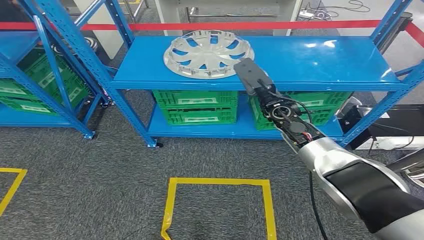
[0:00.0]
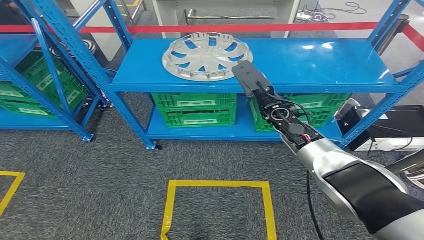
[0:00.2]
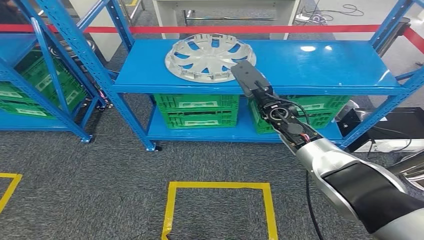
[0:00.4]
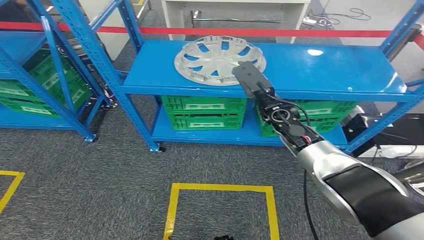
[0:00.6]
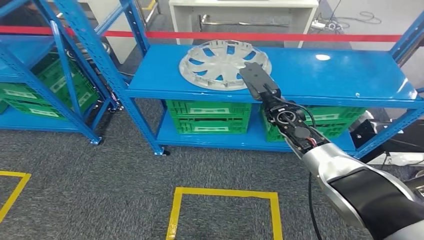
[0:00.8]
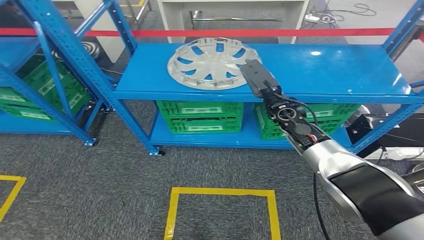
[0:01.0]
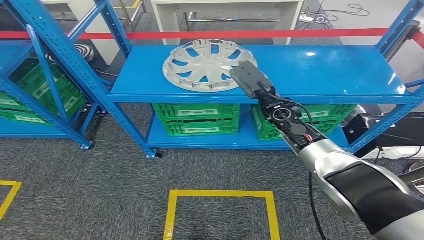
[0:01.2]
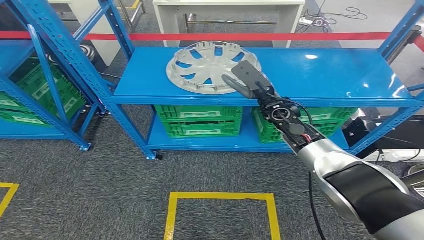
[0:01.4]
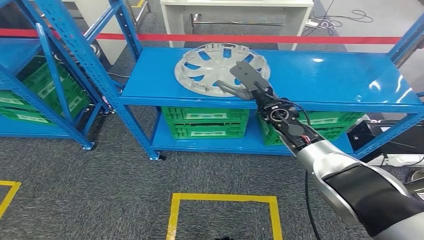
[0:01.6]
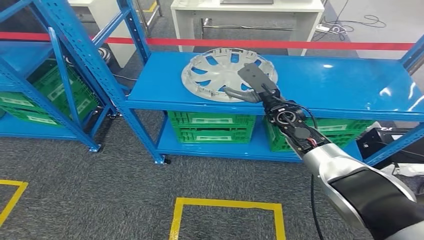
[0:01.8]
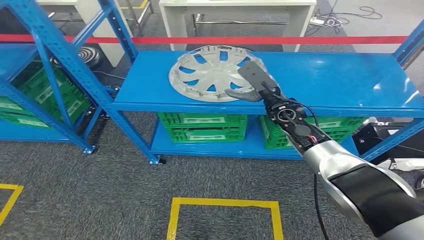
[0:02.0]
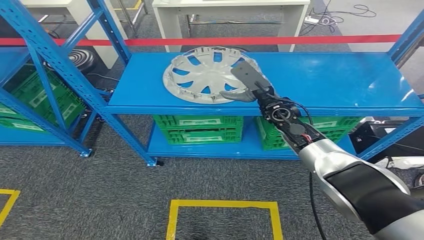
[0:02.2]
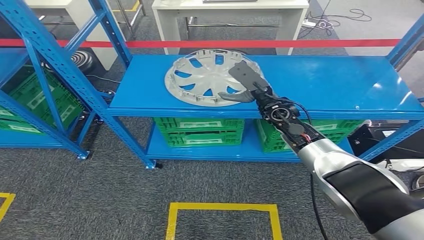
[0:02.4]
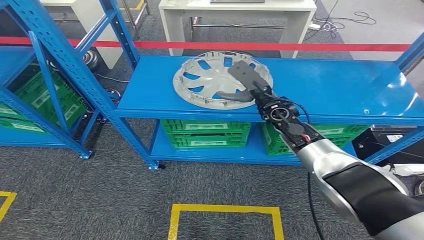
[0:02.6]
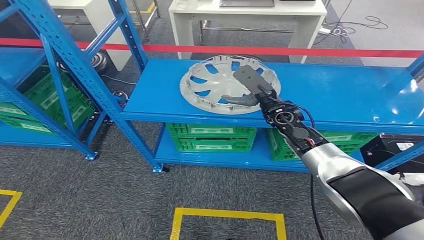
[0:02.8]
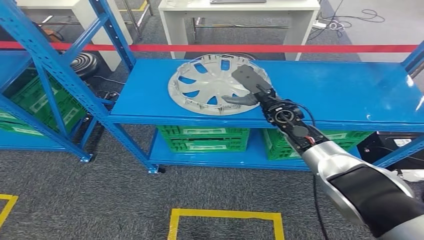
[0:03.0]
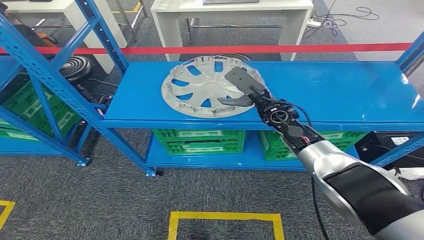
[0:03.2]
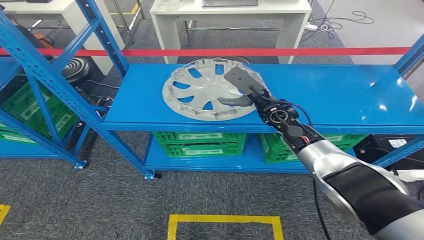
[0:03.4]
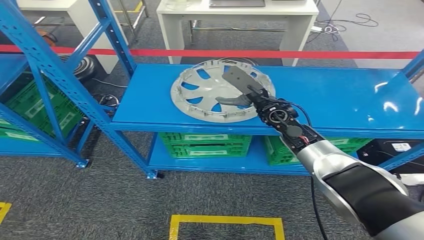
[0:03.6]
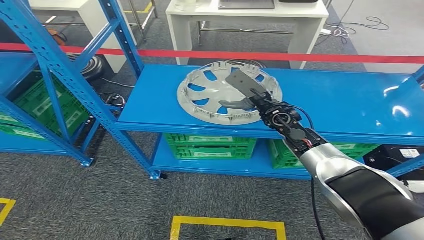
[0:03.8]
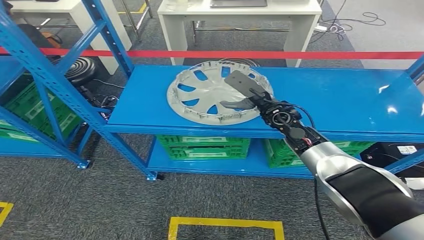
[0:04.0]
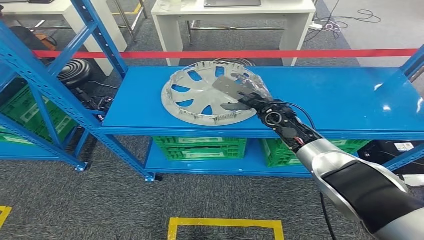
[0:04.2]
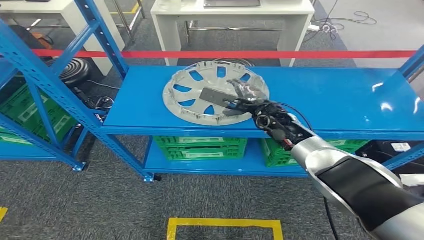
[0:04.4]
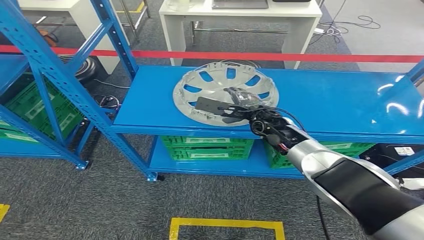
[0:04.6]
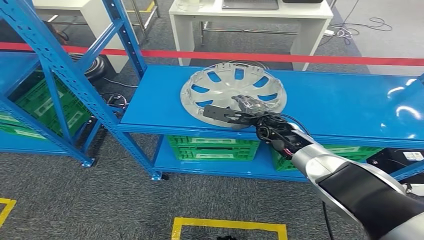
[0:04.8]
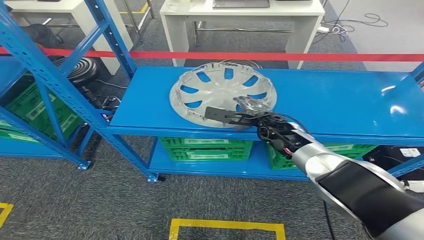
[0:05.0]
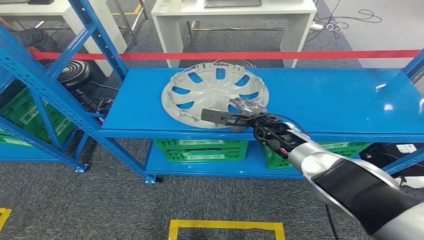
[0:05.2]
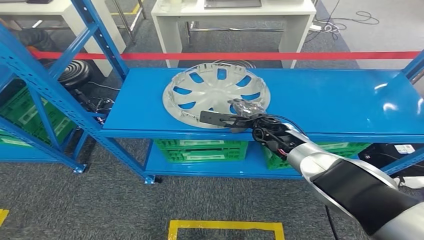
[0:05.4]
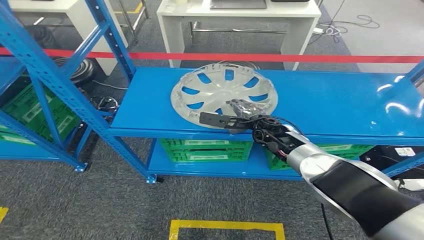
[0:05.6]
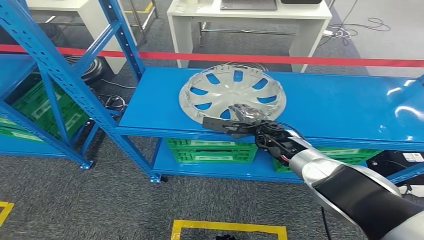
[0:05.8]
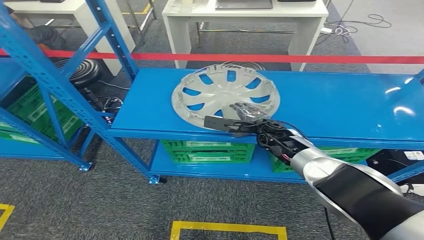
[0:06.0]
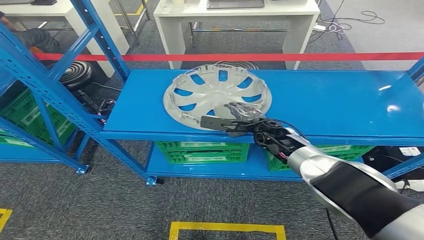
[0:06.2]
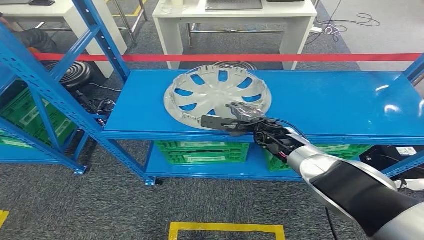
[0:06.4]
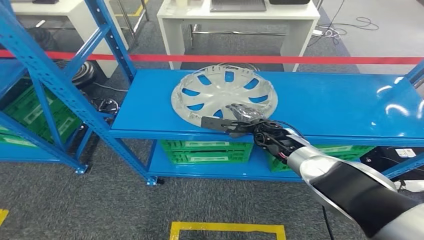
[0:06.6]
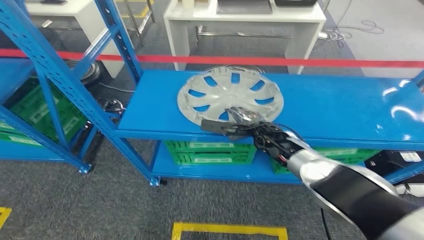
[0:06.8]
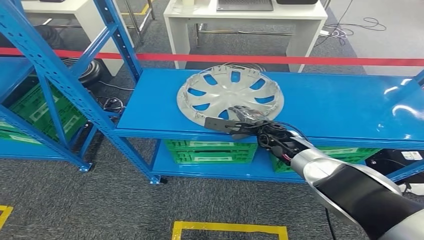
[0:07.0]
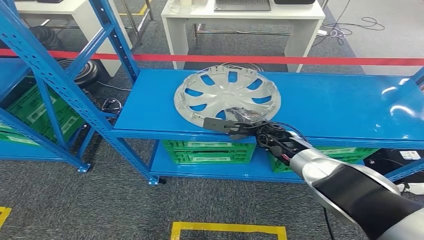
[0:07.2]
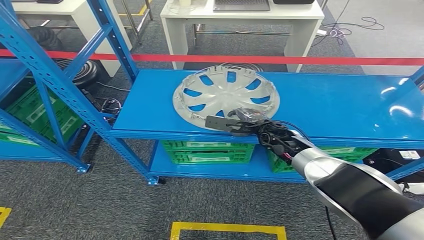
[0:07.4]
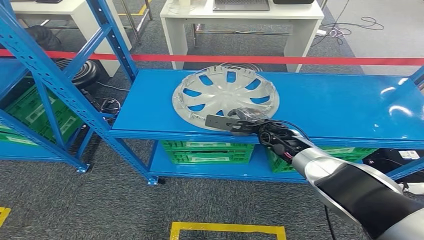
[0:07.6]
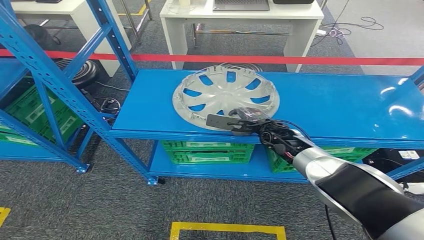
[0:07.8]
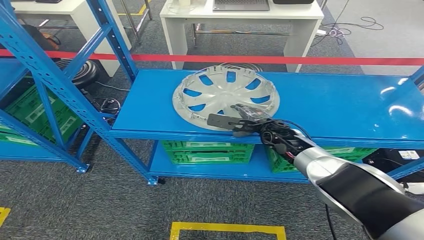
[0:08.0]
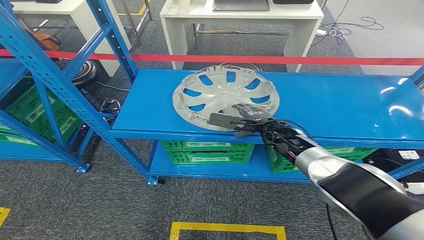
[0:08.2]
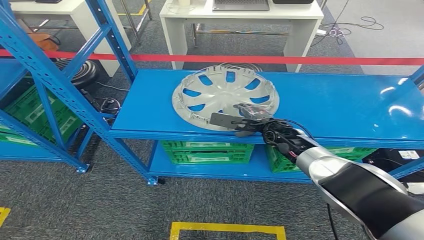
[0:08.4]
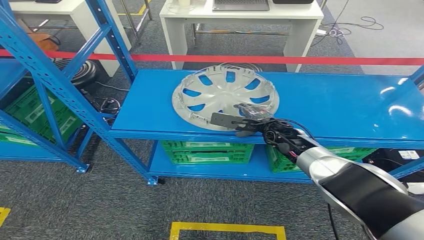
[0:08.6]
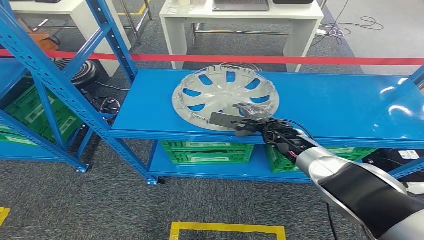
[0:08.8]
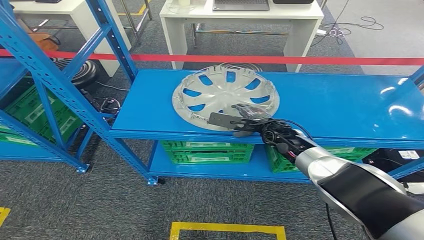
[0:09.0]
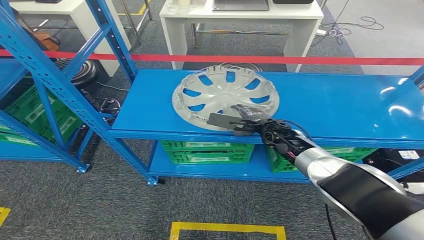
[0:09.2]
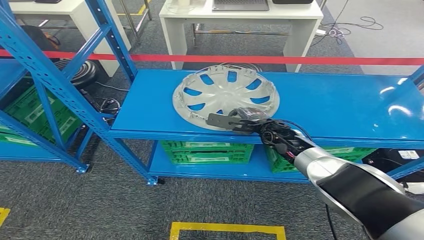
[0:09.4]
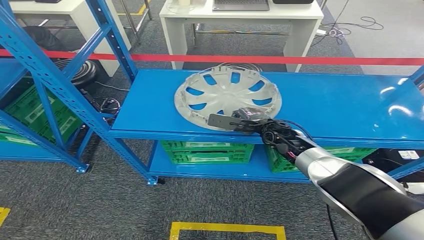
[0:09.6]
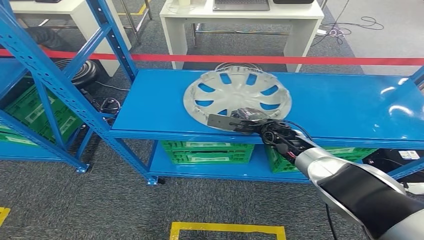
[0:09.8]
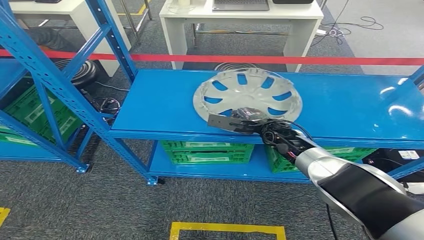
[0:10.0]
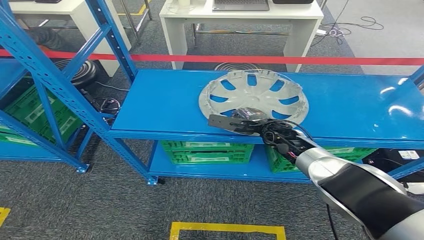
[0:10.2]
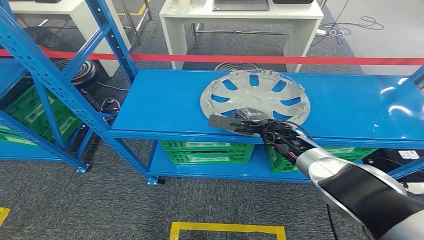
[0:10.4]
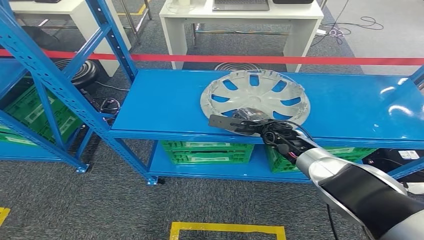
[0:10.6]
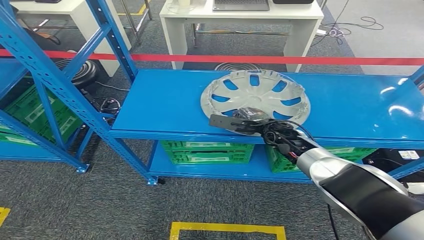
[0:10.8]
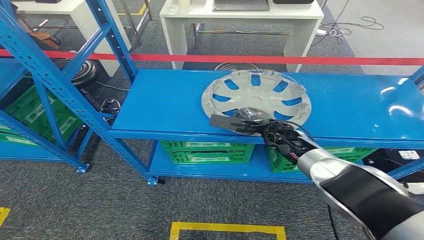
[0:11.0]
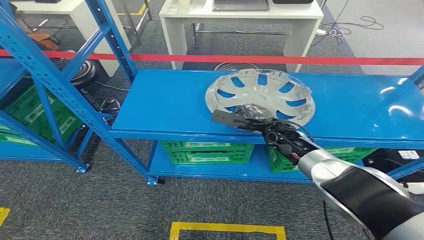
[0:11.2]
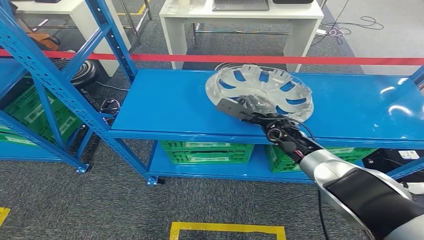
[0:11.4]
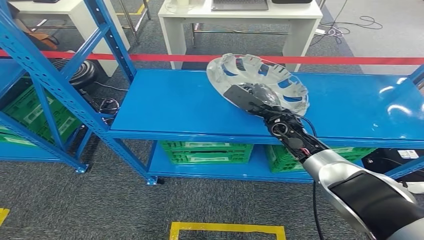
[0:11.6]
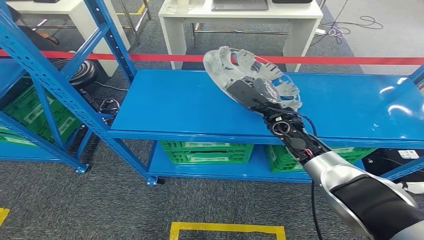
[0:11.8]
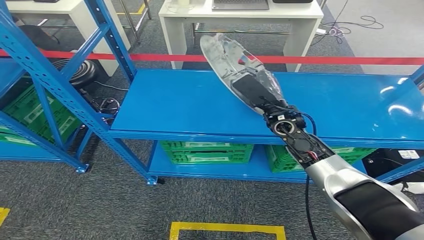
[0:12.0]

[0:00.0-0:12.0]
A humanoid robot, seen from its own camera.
0:06.0 to 0:07.6: There are only small adjustments of the hands.
0:07.6 to 0:10.4: Neither hand changes place.
0:10.4 to 0:12.0: The right hand is displaced upward by approximately 10 cm.

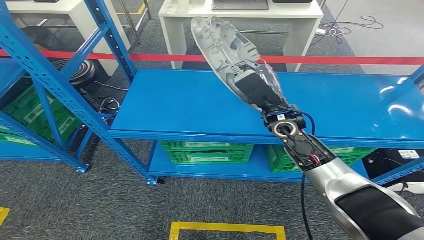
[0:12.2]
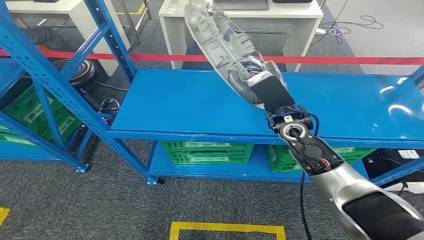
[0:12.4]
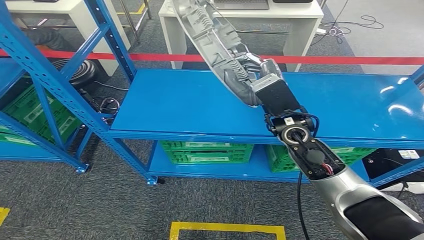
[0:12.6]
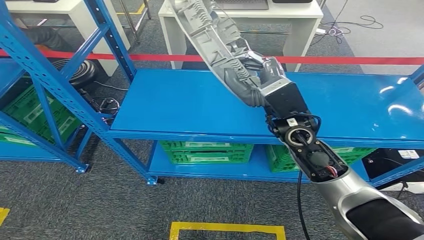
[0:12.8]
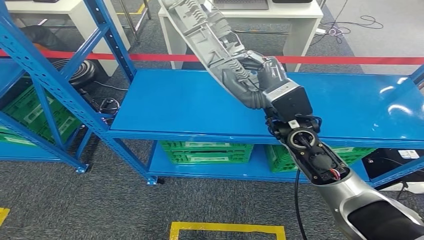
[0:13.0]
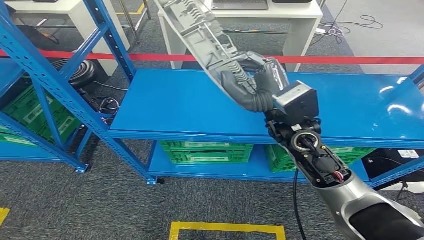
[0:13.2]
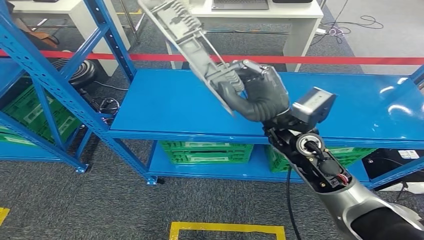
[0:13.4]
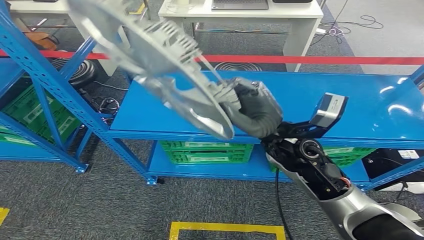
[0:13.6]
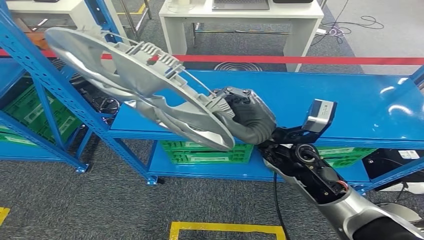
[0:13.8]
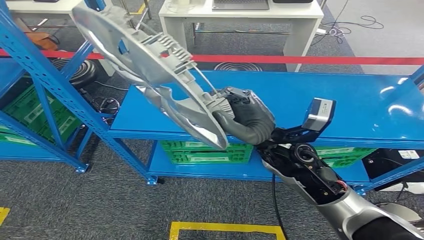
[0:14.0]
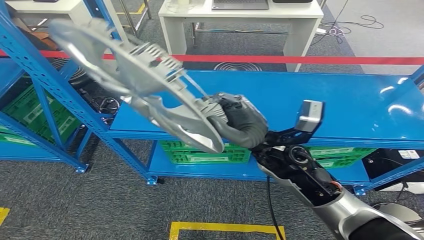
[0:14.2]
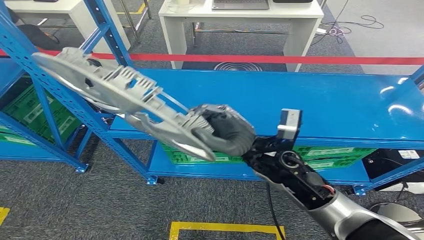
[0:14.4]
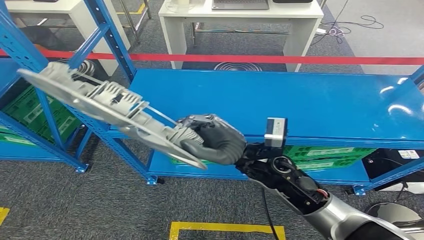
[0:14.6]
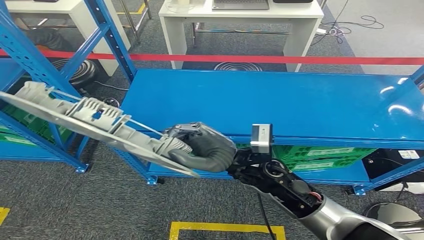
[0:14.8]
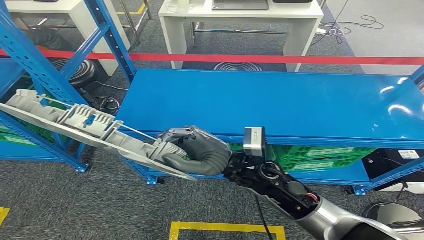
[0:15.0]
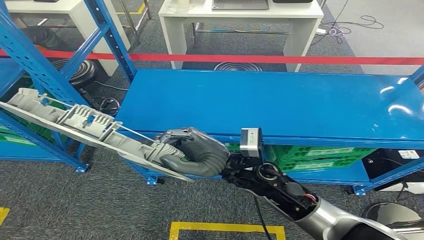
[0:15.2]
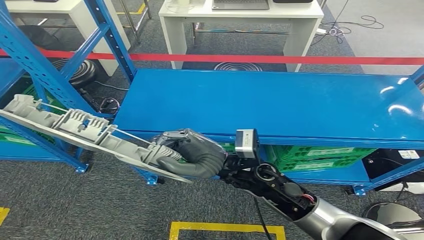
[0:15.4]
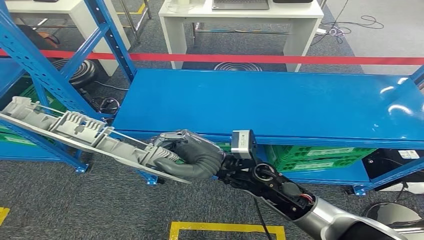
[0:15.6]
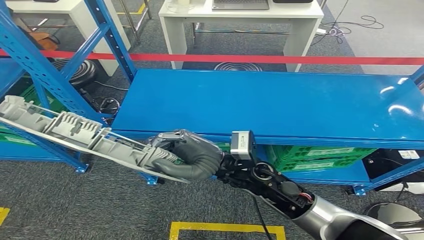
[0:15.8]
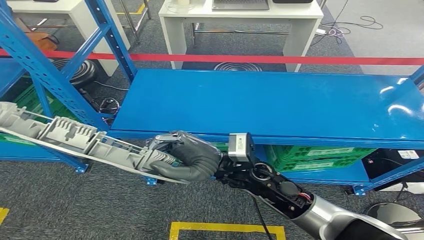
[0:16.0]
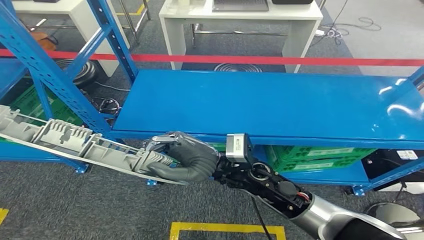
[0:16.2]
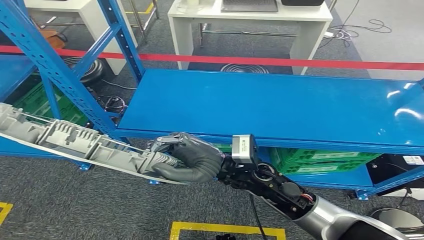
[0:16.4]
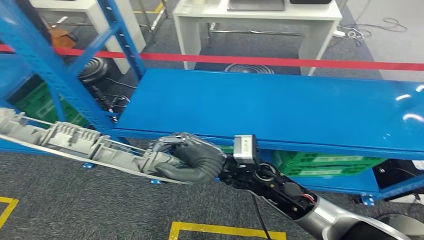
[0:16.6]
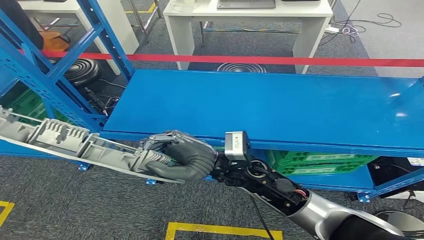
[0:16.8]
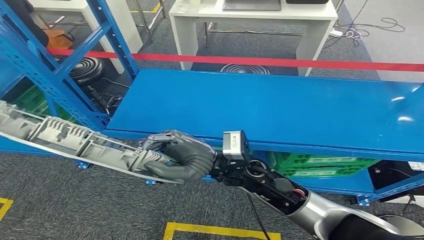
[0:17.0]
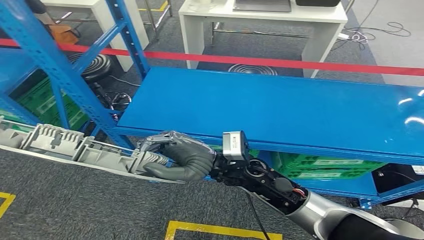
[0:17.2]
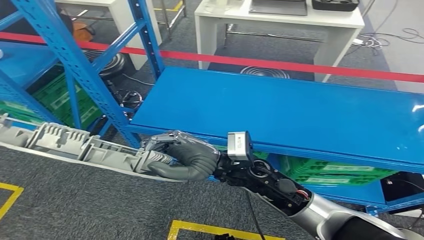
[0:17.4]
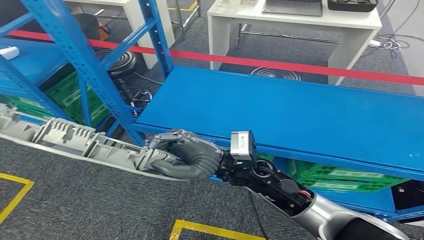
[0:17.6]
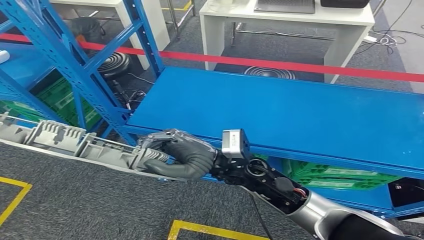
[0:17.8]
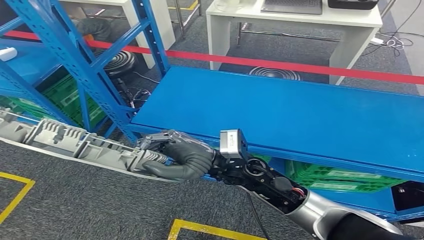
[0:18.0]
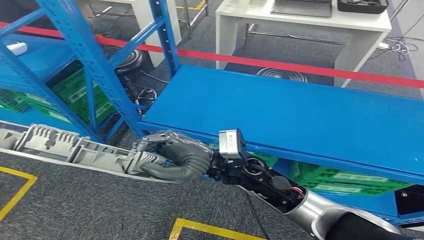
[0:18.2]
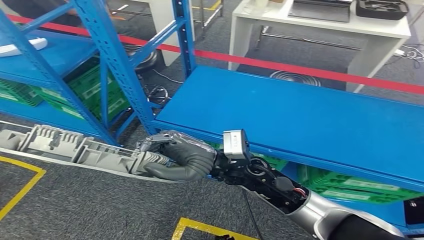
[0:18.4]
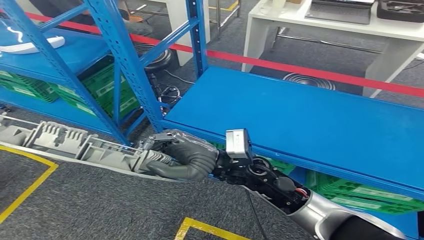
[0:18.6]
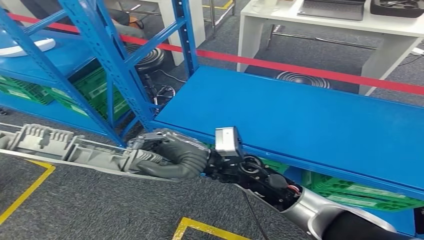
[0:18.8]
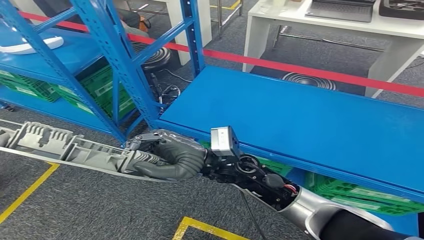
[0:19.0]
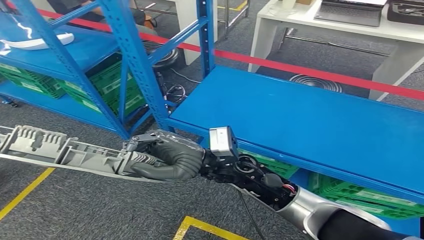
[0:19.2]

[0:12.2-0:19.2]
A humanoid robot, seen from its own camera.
Step, 0:12.2 to 0:15.8: Pick up the small parts from the shelf.
